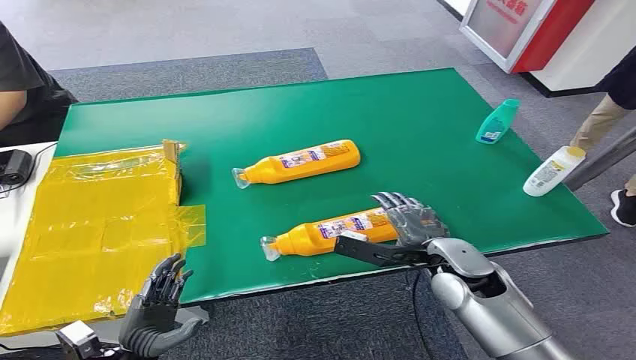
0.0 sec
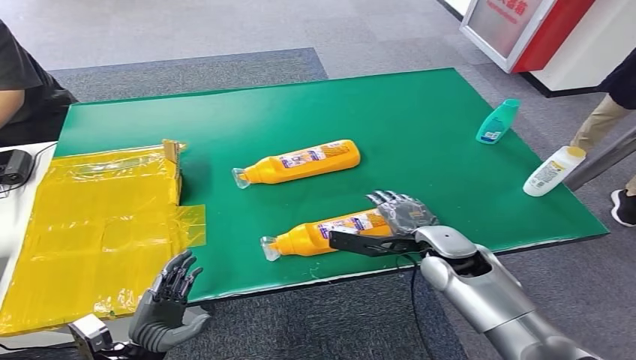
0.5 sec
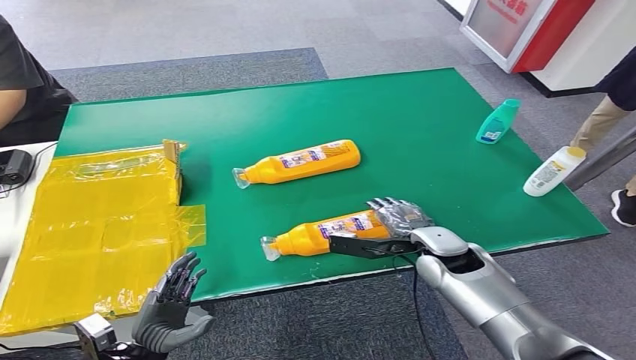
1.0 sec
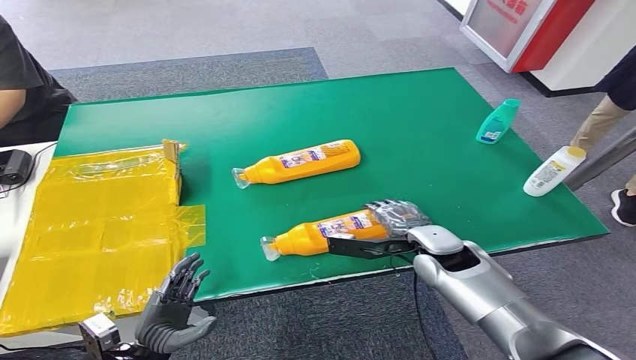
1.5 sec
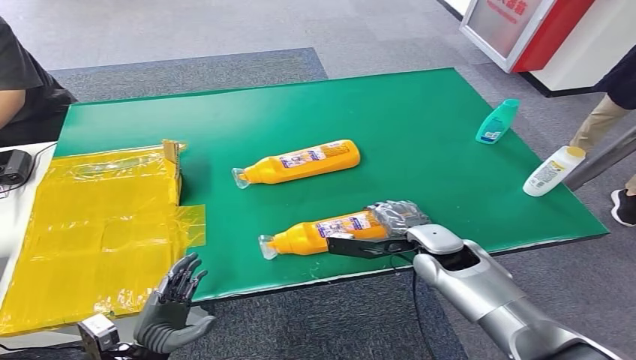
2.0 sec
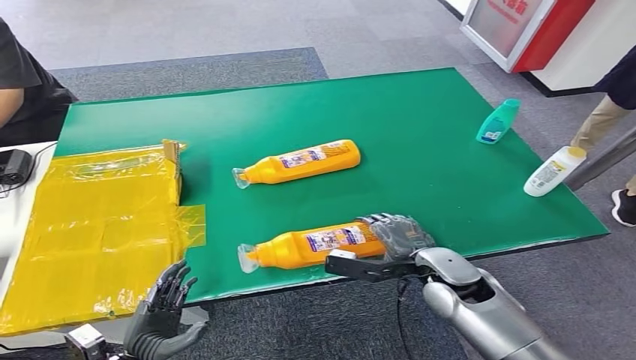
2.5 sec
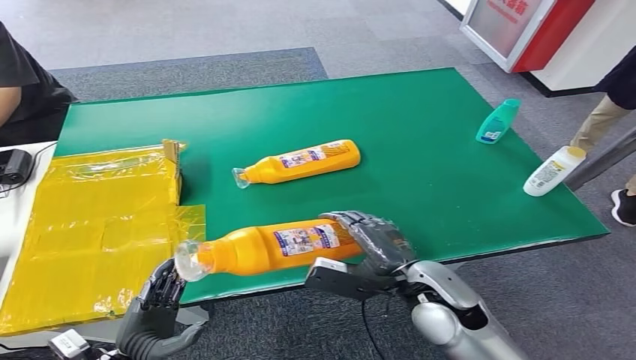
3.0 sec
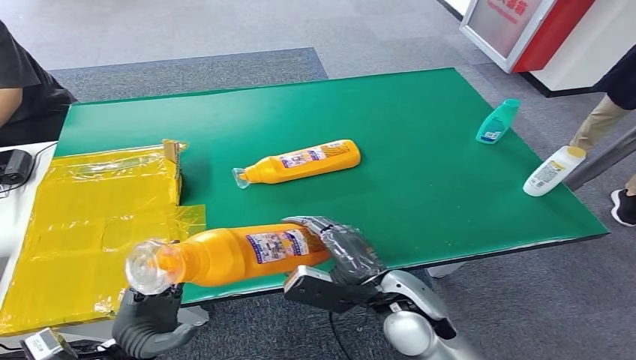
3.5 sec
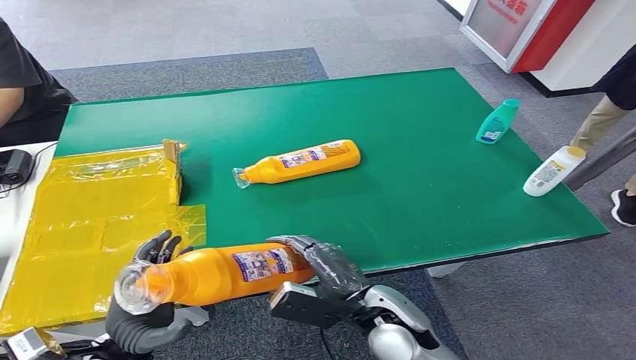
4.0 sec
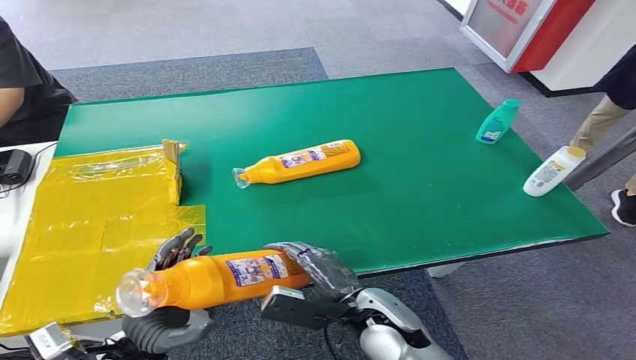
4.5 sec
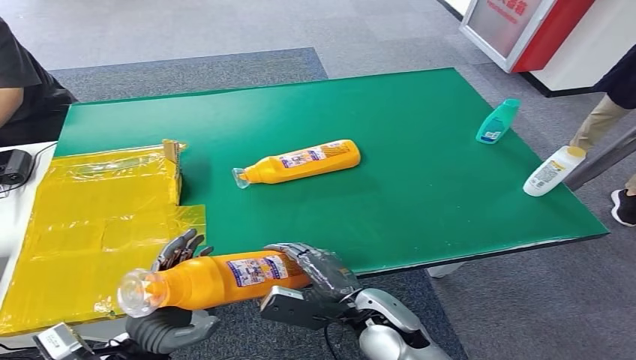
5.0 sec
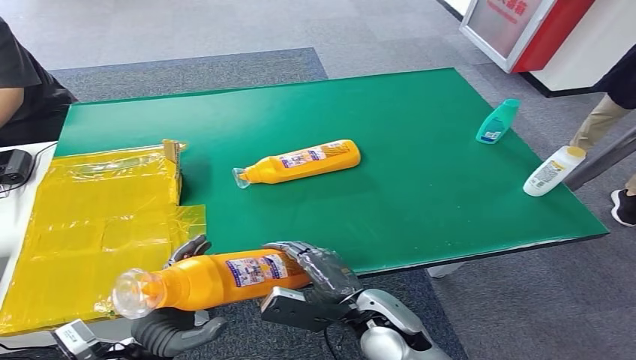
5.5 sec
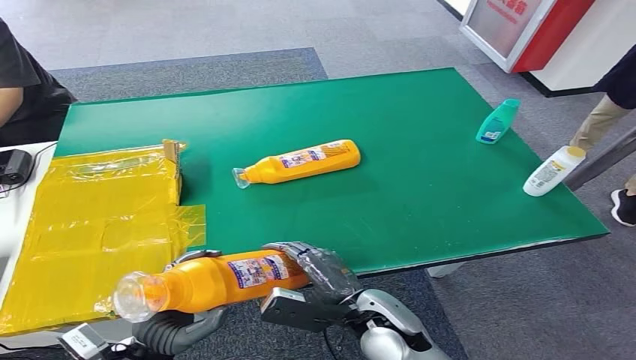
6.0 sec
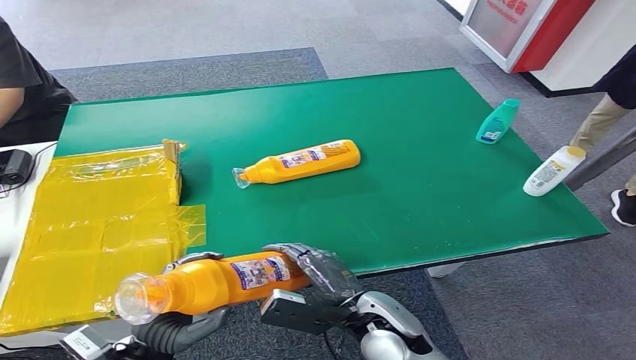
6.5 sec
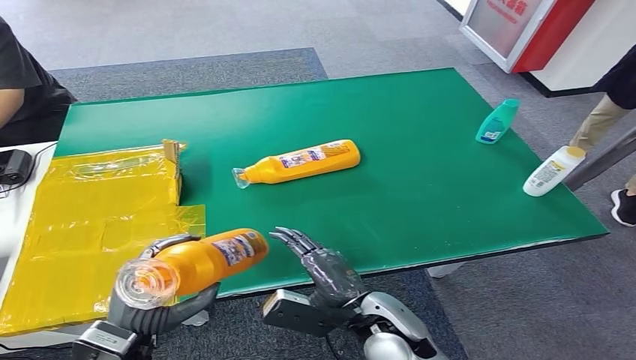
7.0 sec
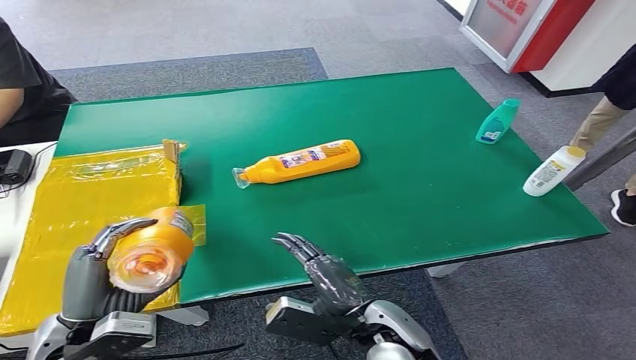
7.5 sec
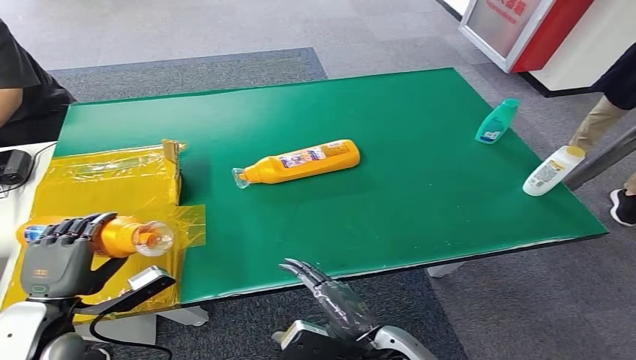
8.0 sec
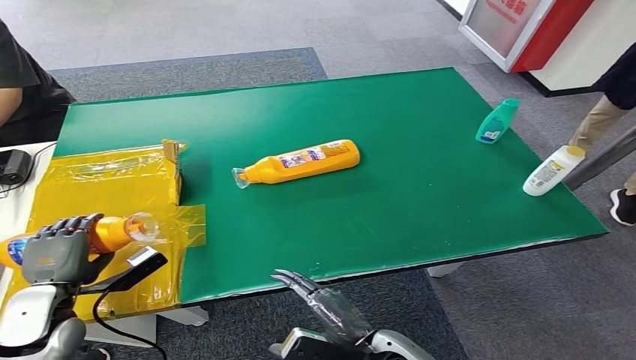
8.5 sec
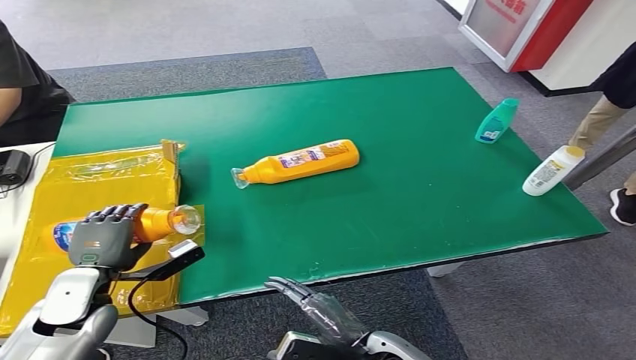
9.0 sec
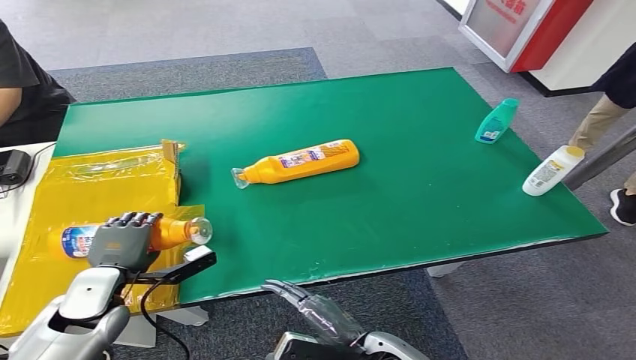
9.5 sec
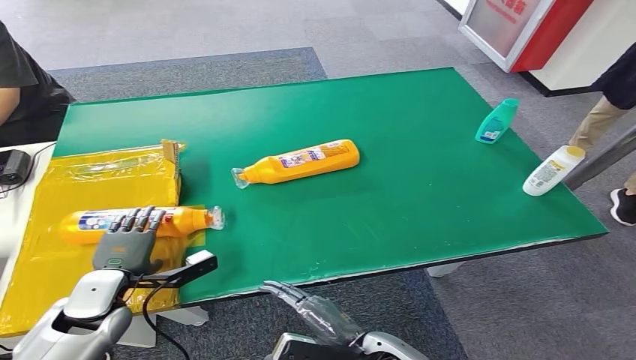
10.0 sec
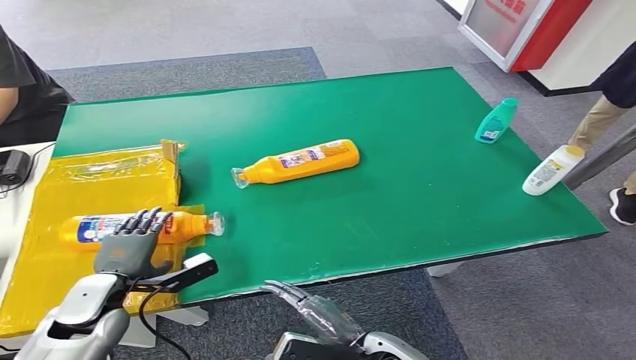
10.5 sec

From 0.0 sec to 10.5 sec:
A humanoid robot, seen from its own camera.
Step, from 0.0 sec to 3.0 sec: Pick up the bottle from the table.
Step, from 3.5 sec to 10.5 sec: Turn the bottle to the front side.
From 2.0 sec to 4.0 sec: The right hand moves backward and to the left, some 15 cm. The left hand shifts roughly 10 cm upward.
From 4.0 sec to 6.5 sec: The hands move only a little.
From 6.5 sec to 8.5 sec: The right hand heads backward, covering some 5 cm, while the left hand moves to the left and forward, roughly 15 cm.
